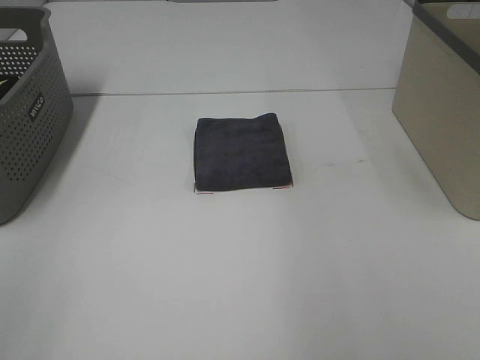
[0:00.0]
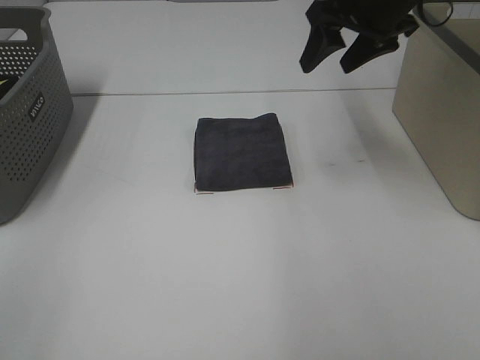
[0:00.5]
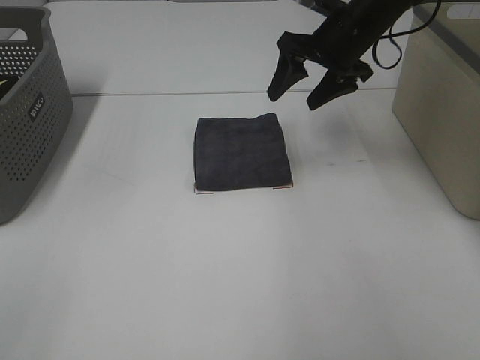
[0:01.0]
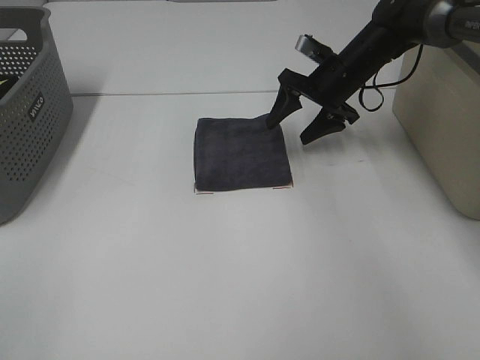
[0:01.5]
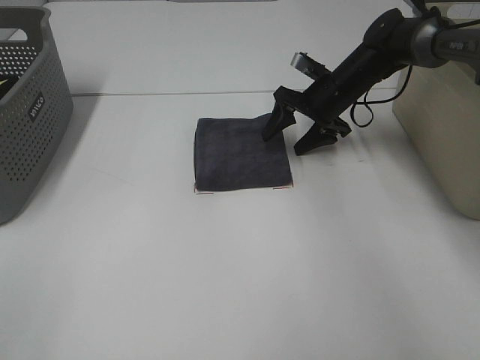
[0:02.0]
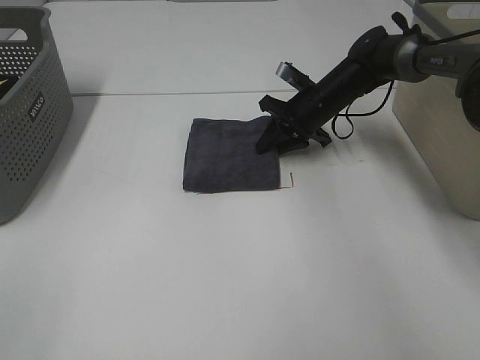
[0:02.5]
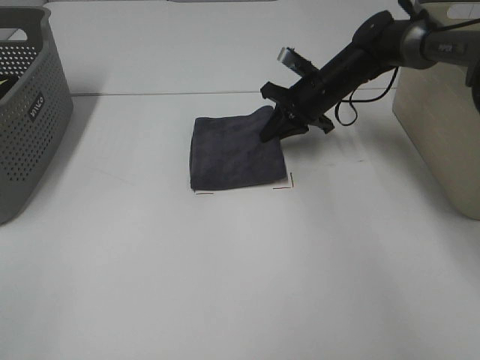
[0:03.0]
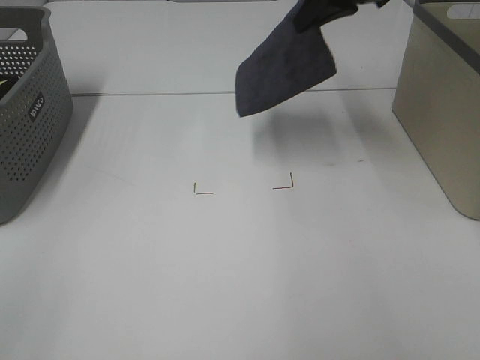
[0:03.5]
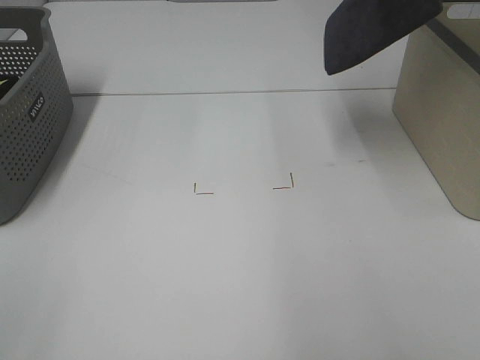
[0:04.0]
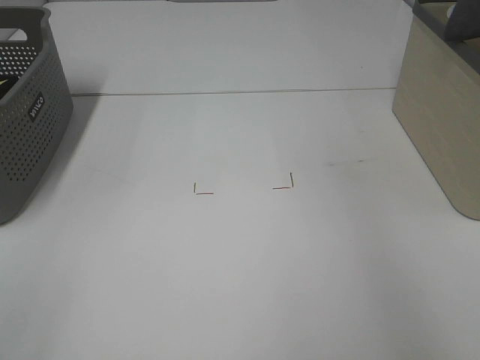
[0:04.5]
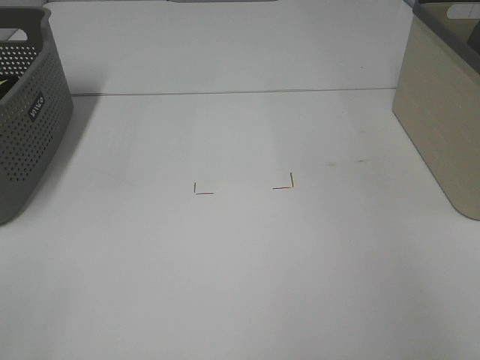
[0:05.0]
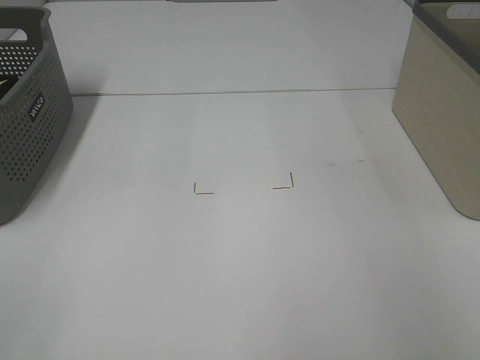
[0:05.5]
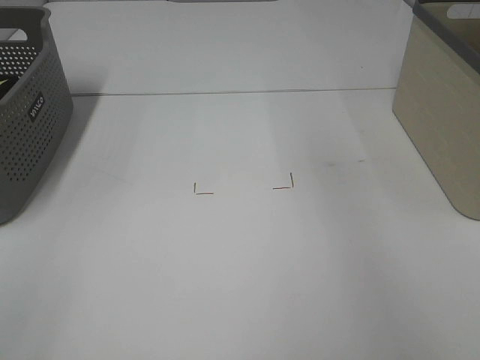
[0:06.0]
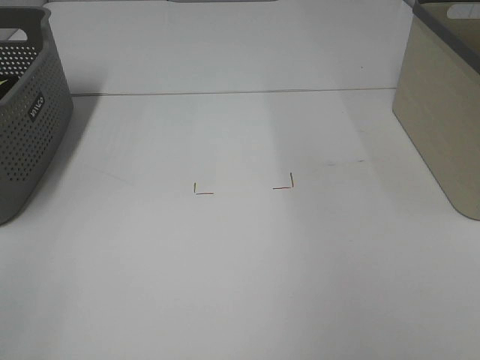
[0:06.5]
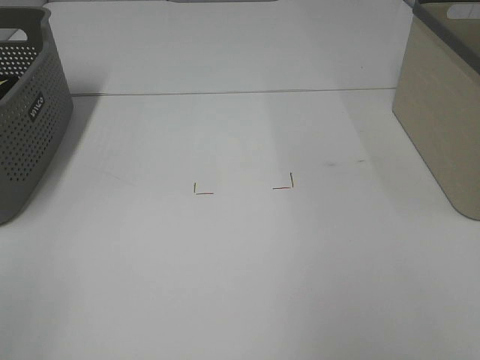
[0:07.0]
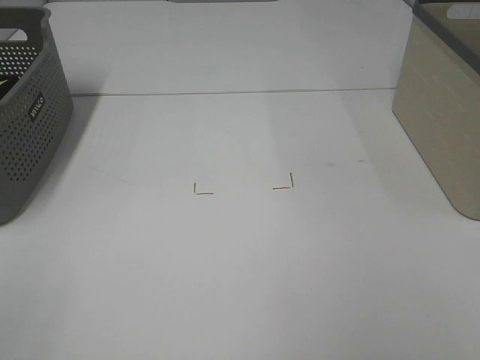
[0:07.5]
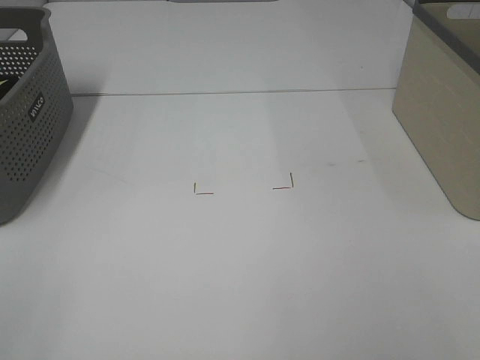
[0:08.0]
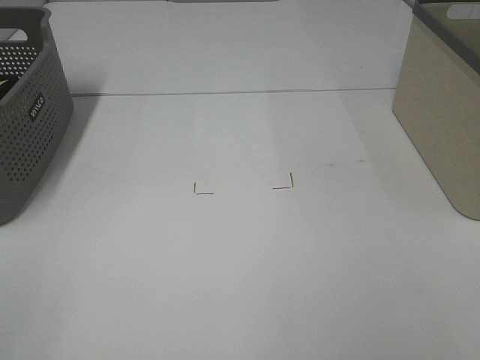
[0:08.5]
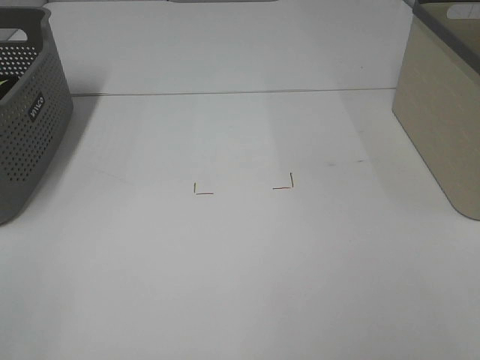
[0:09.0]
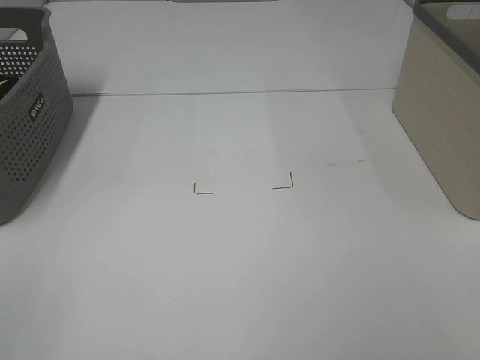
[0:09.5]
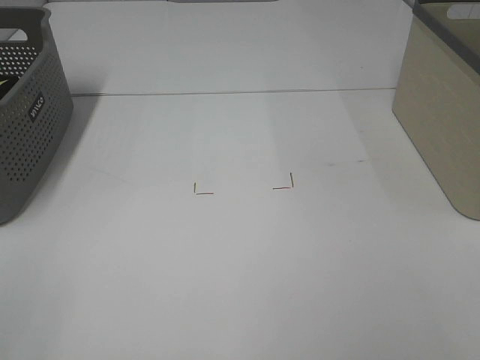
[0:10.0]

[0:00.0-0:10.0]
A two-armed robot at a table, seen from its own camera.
Step, 0:00.0 to 0:02.5: Right hand: grab the folded grey towel.
Step, 0:03.0 to 0:05.5: Right hand: place the grey towel in right basket.
0:00.0 to 0:02.0: The right gripper moves downward and forward, some 30 cm.
0:02.0 to 0:04.0: The right gripper heads upward, covering approximately 30 cm, and closes its fingers.
0:04.0 to 0:06.0: The right gripper is displaced to the right by about 10 cm, and opens up.
0:08.0 to 0:10.0: Both grippers stay put.

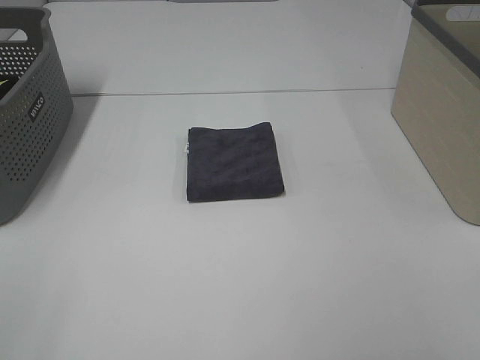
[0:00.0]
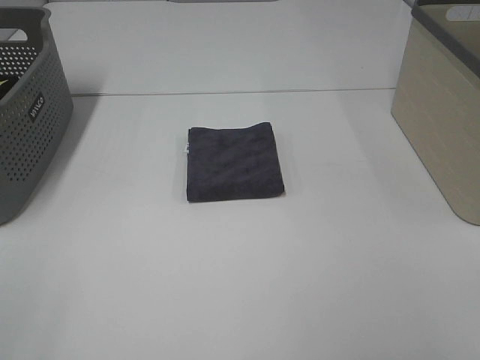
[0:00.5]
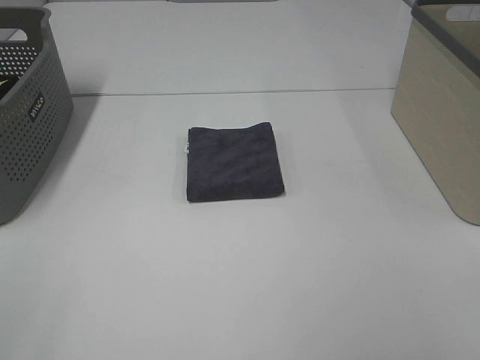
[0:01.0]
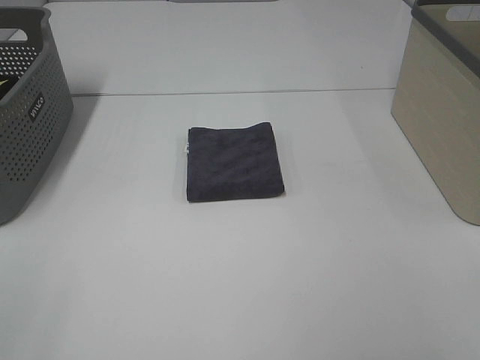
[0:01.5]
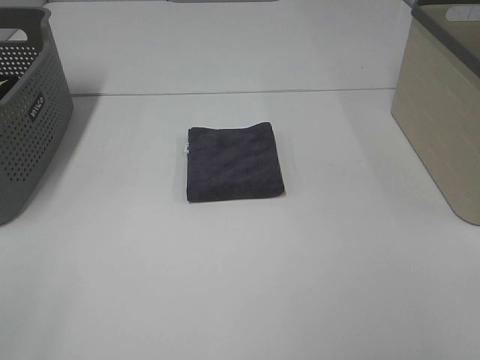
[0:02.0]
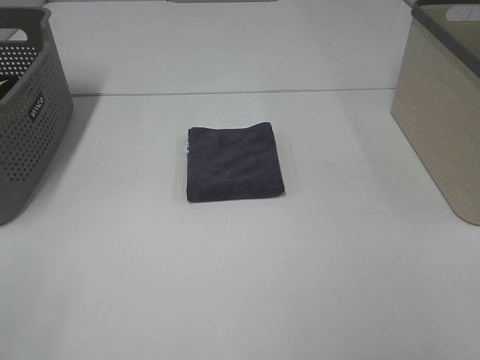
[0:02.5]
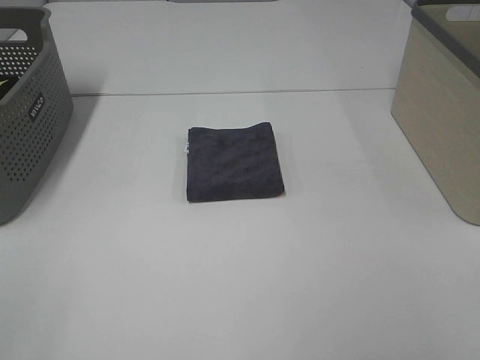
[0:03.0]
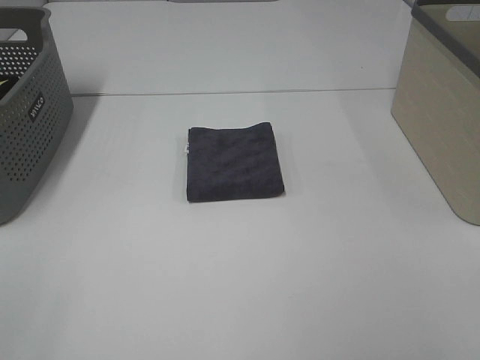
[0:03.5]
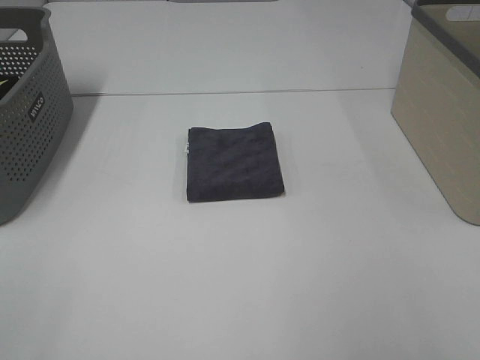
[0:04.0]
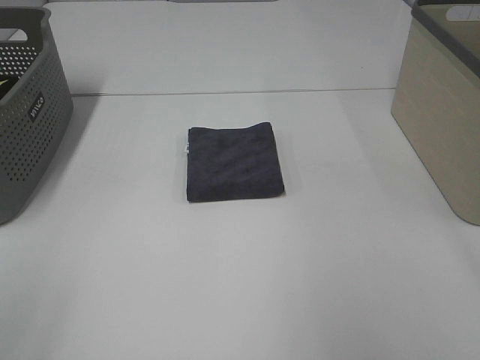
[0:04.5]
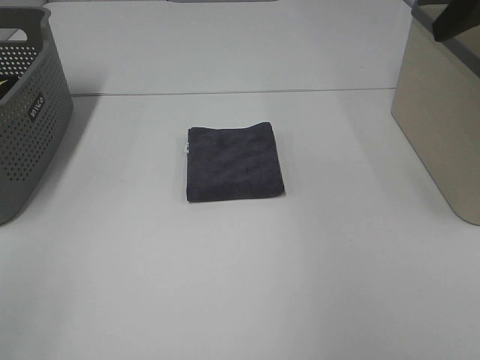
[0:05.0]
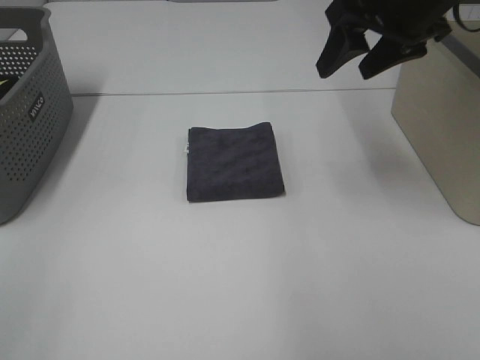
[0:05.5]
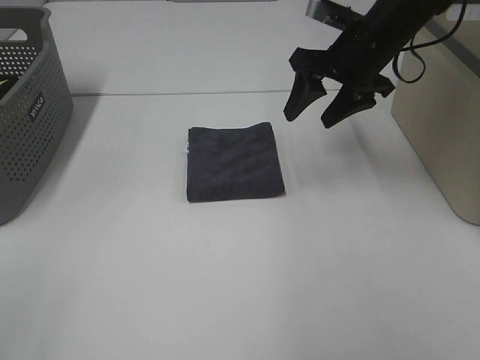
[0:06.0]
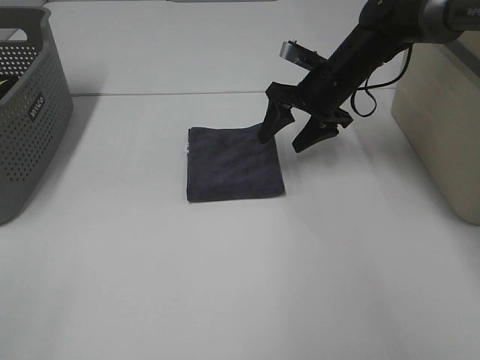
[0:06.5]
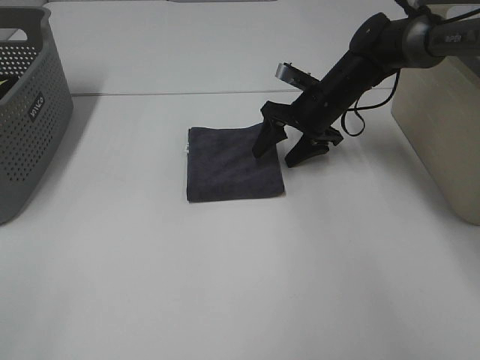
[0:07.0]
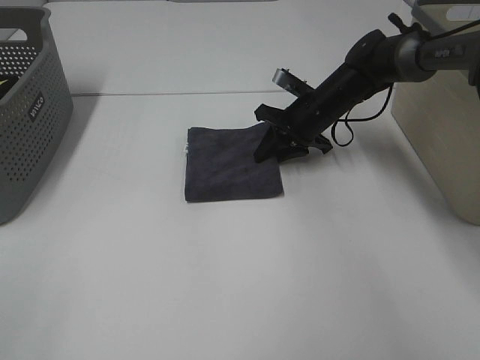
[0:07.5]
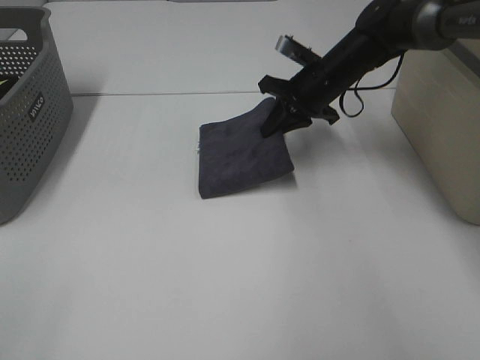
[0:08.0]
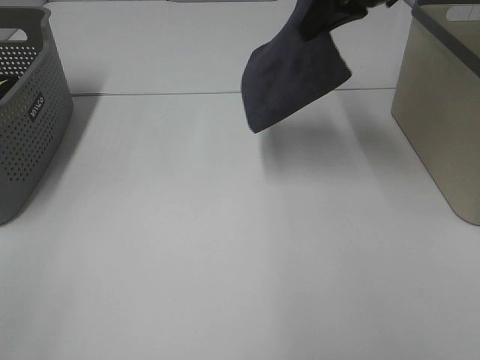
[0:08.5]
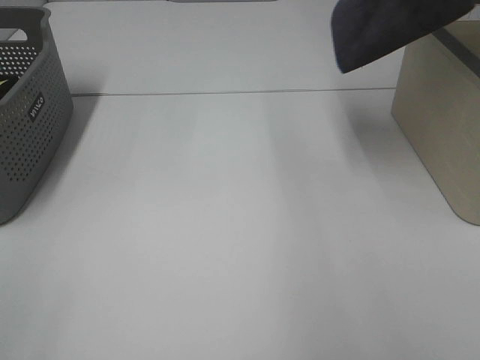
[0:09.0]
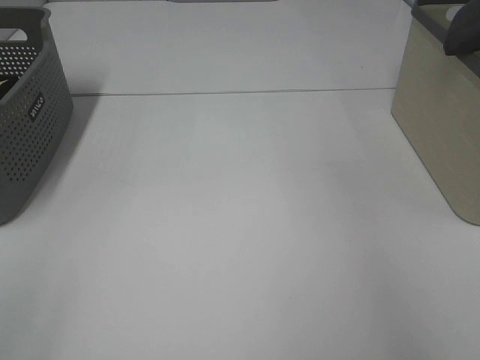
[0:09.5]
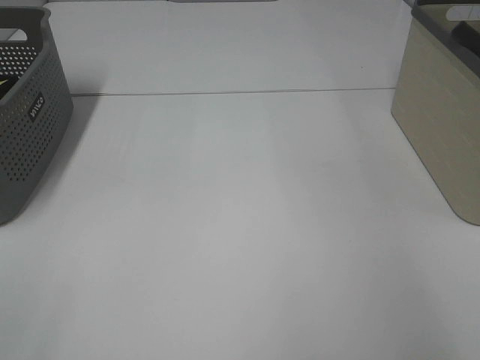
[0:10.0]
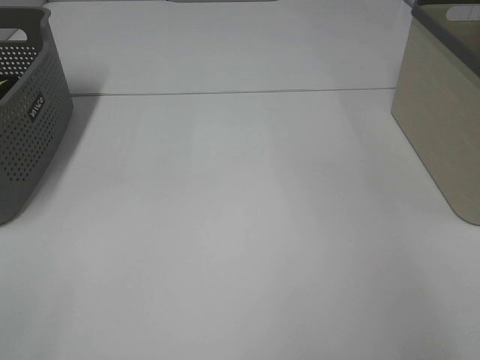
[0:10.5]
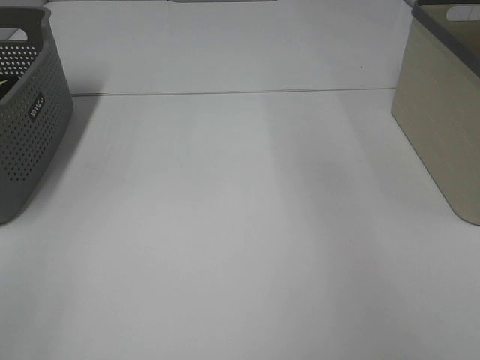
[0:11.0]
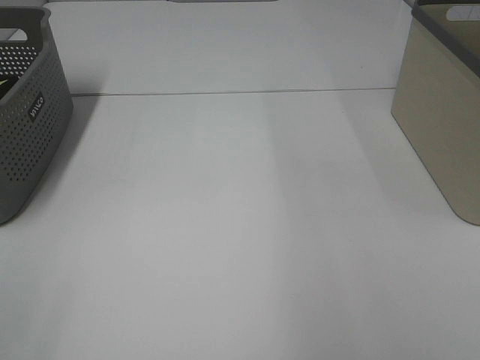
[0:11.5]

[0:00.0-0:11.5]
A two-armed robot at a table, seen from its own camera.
Step, 0:00.0 to 0:07.5: Right hand: grab the folded grey towel.
Step, 0:08.0 to 0:10.0: Right hand: place the grey towel in right basket.
0:00.0 to 0:02.0: Both grippers stay about where they are.
0:04.0 to 0:06.0: The right gripper goes some 35 cm forward.
0:06.0 to 0:07.5: The right gripper goes approximately 15 cm downward and forward, and closes.
0:07.5 to 0:09.5: The right gripper shifts some 40 cm upward and to the right.
0:09.5 to 0:11.5: The right gripper is displaced to the left and backward by approximately 15 cm, and opens its fingers.

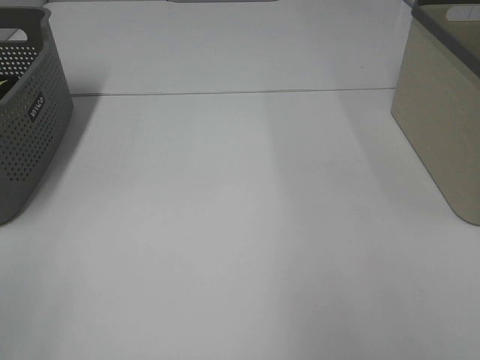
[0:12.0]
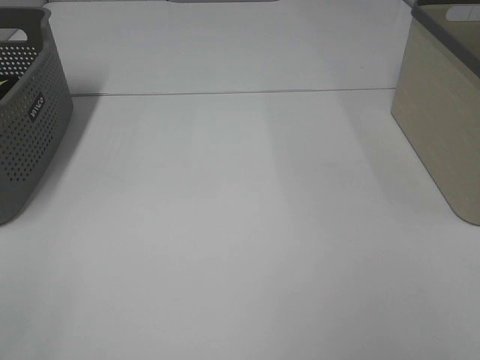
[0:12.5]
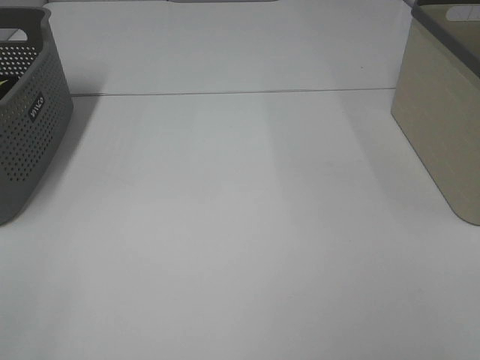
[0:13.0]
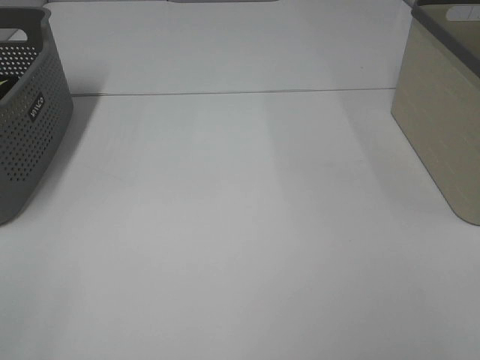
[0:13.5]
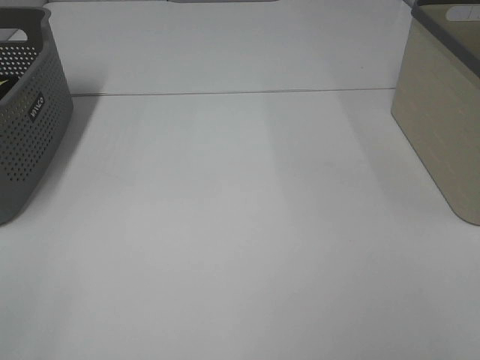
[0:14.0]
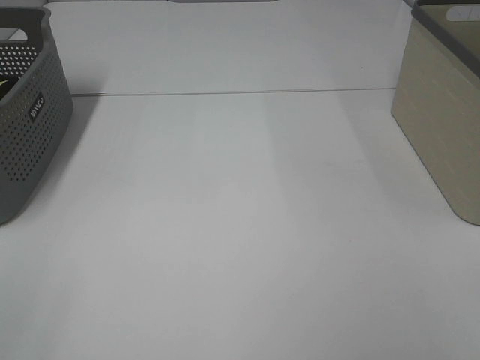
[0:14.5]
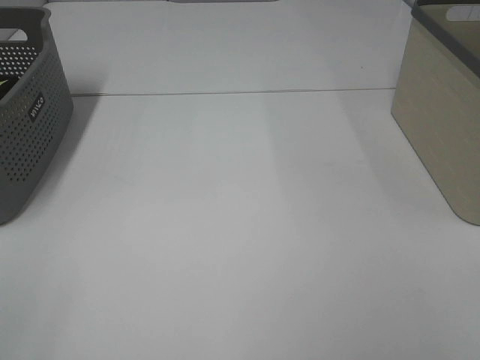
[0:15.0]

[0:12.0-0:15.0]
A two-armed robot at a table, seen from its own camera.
0:13.5 to 0:15.0: Neither gripper changes place.

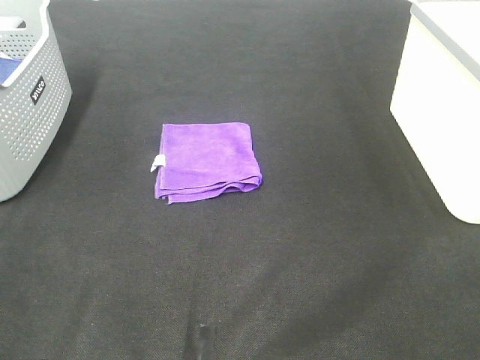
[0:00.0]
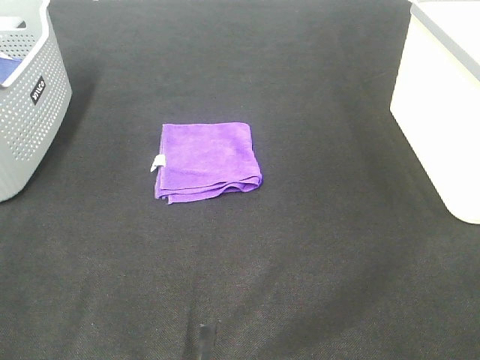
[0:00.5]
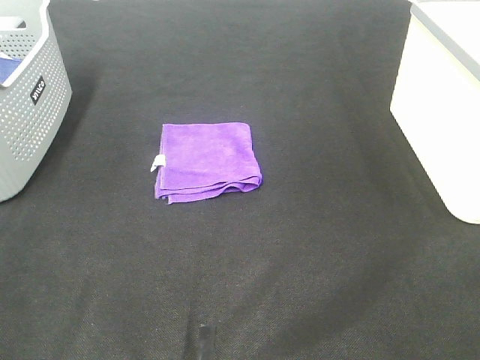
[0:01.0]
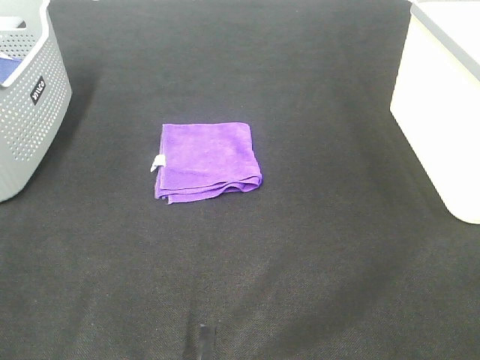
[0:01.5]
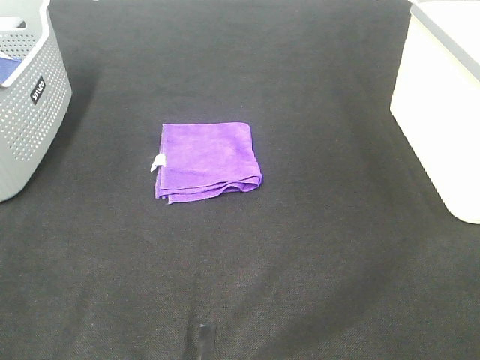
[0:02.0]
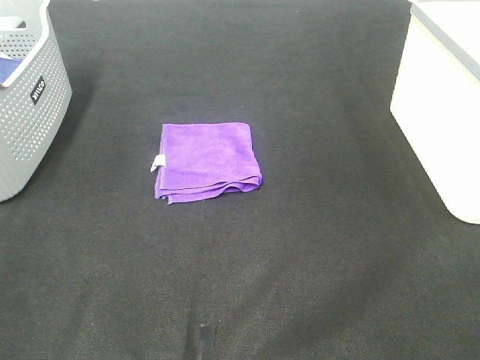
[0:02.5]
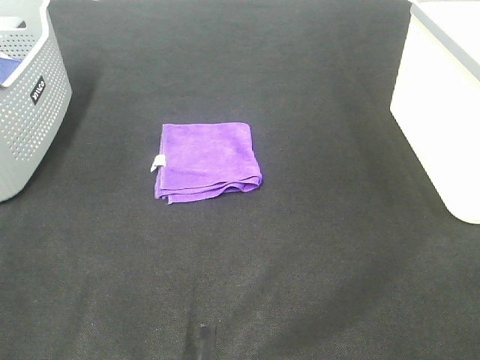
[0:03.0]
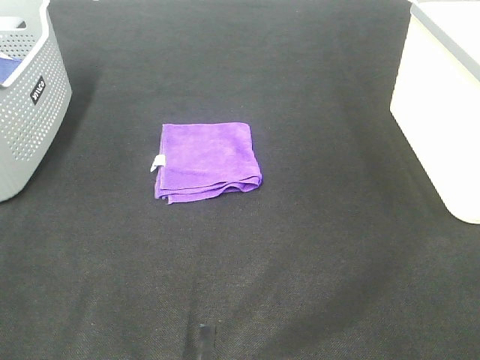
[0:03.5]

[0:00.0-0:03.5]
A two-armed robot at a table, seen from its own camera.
0:00.0 to 0:02.0: Both grippers stay put.
